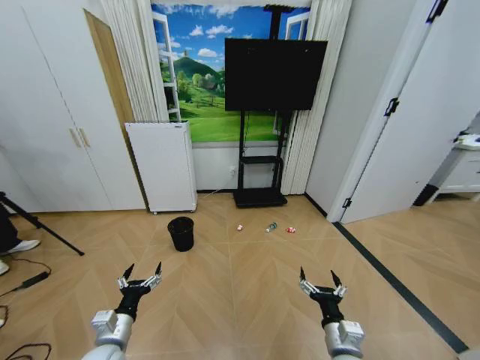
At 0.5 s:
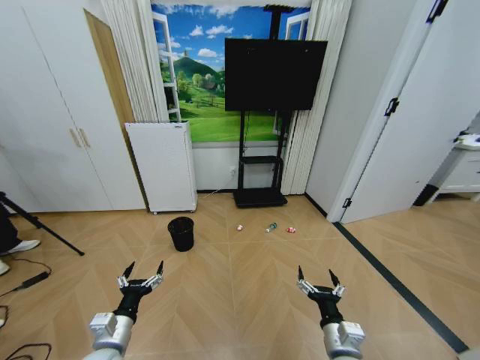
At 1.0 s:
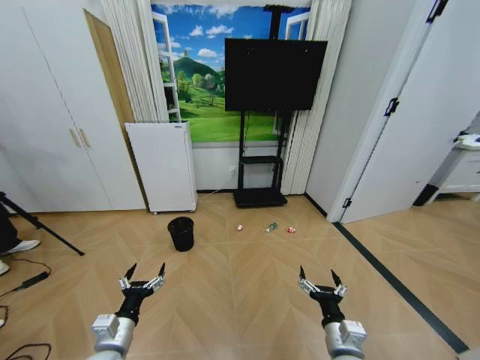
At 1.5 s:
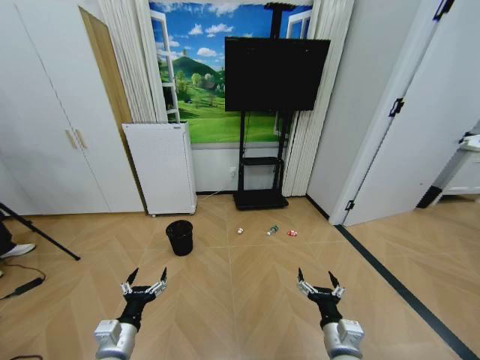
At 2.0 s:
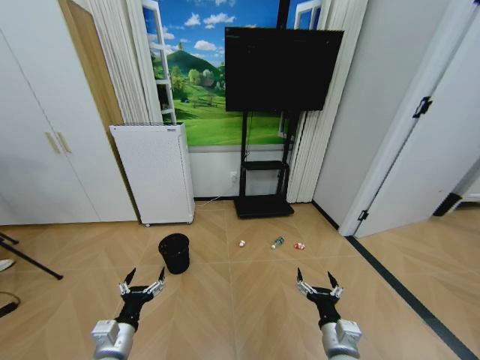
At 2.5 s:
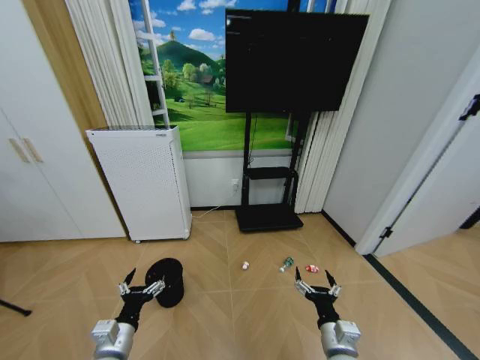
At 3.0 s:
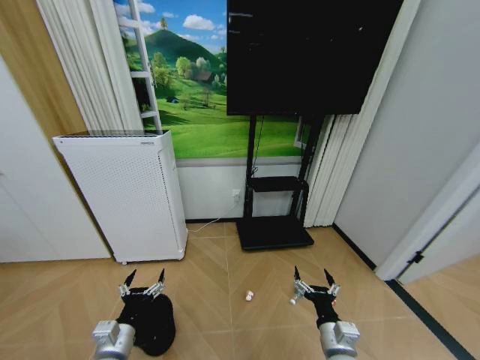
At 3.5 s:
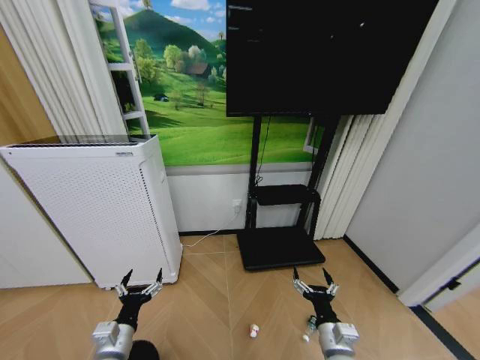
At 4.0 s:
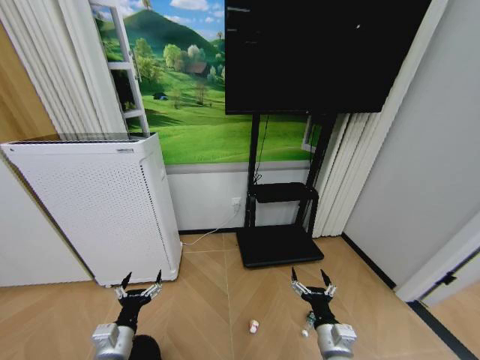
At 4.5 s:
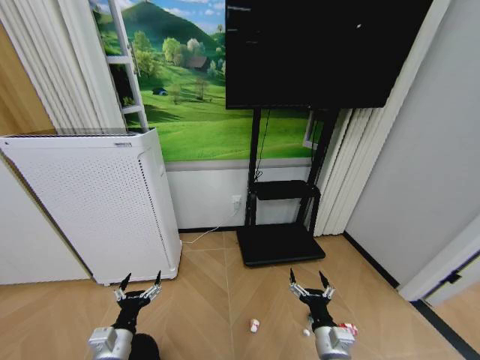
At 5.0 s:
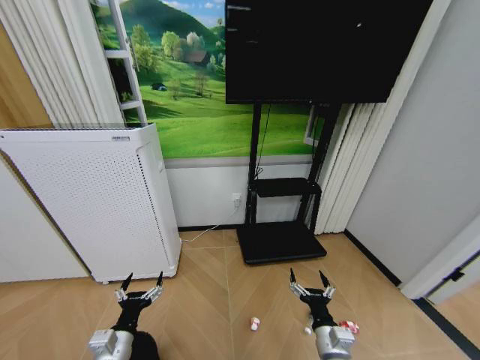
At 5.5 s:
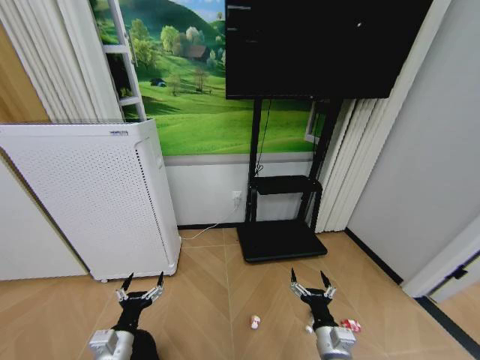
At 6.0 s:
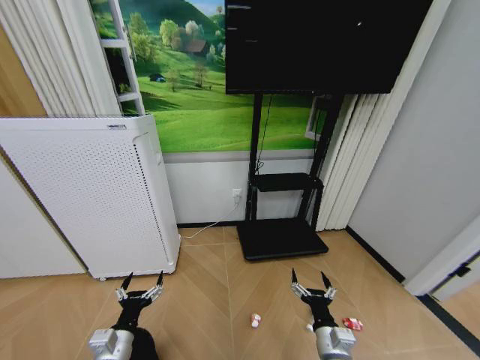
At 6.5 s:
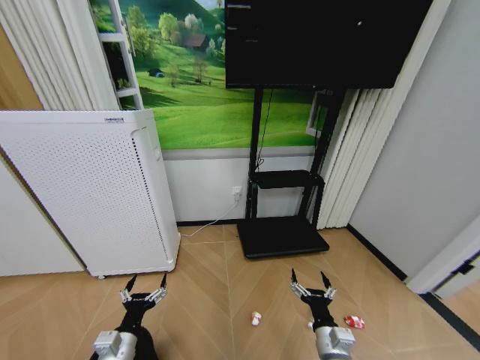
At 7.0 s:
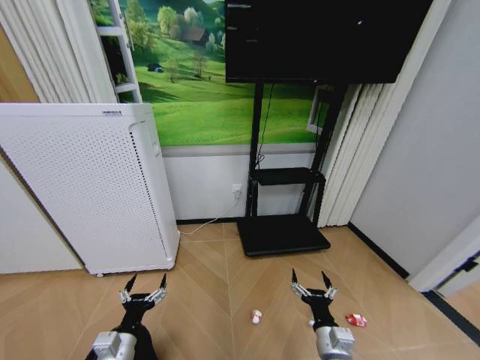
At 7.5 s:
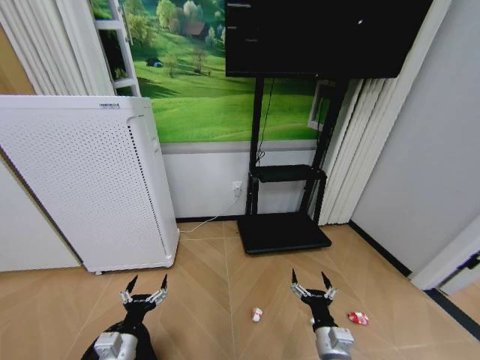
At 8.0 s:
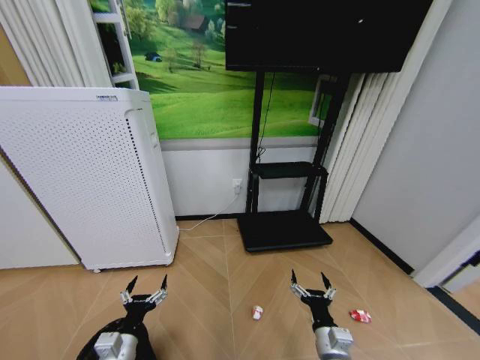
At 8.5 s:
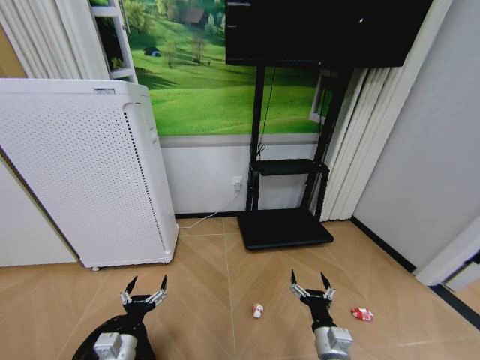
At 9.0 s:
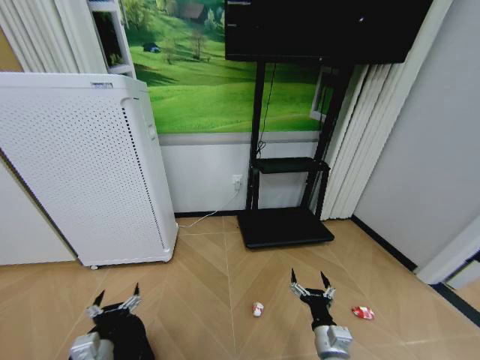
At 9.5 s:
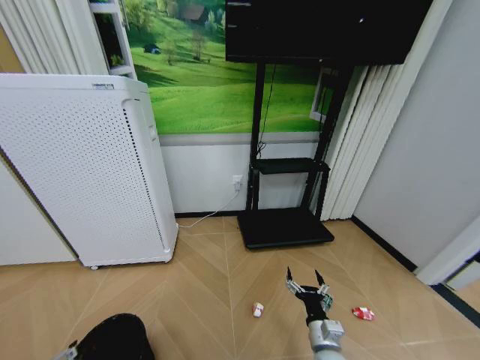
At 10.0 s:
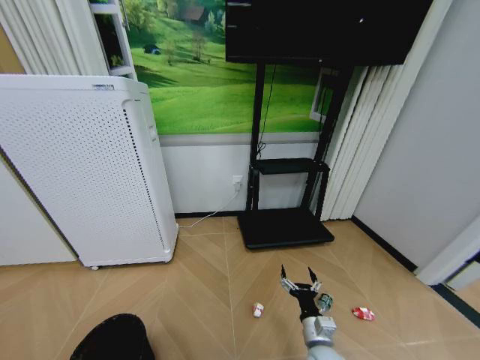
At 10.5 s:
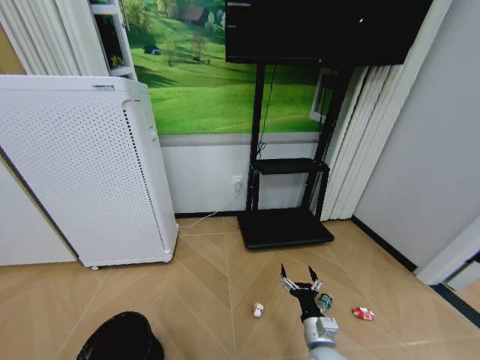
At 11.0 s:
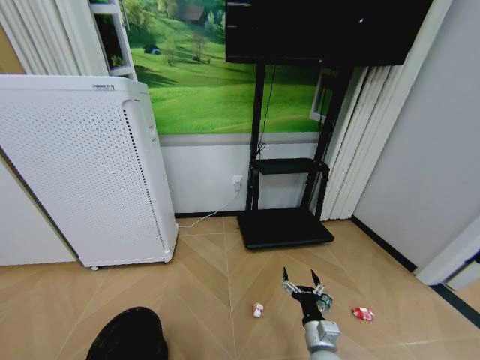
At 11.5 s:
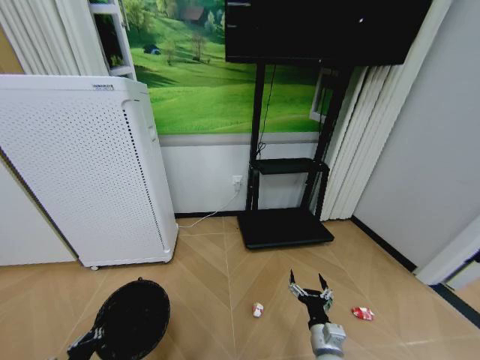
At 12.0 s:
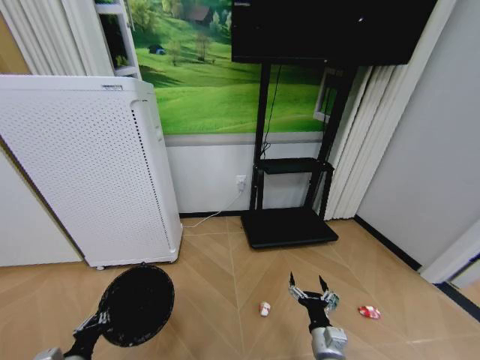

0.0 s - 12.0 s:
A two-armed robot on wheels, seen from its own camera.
Task of the whole recording: Pick up the trash bin and place the garbage on the floor into it.
6.0 s - 8.0 s: The two grippers keep their place.
8.0 s - 10.0 s: The left gripper goes roughly 15 cm to the left and backward.
10.0 s - 12.0 s: The left gripper shifts roughly 5 cm forward, and closes its fingers.

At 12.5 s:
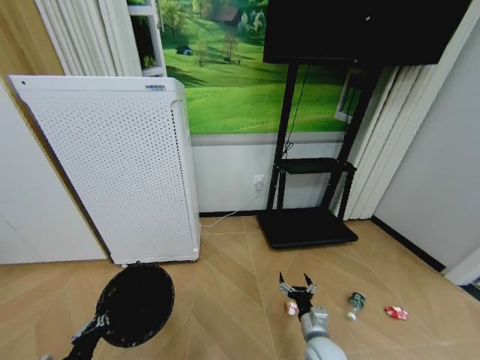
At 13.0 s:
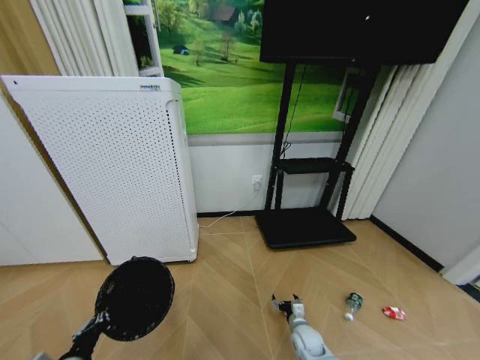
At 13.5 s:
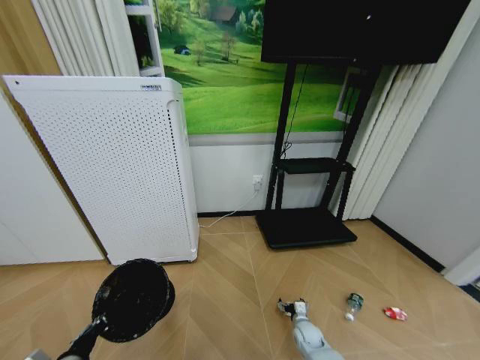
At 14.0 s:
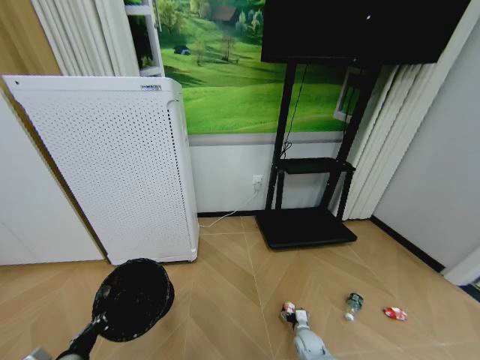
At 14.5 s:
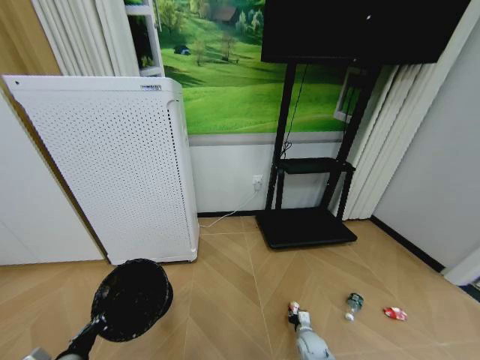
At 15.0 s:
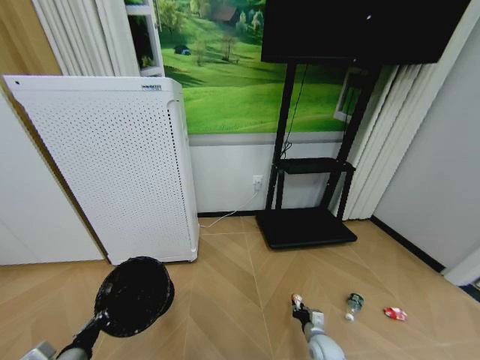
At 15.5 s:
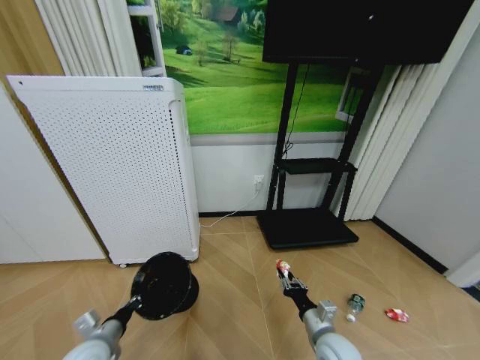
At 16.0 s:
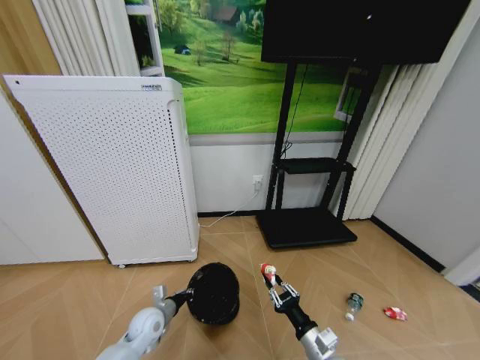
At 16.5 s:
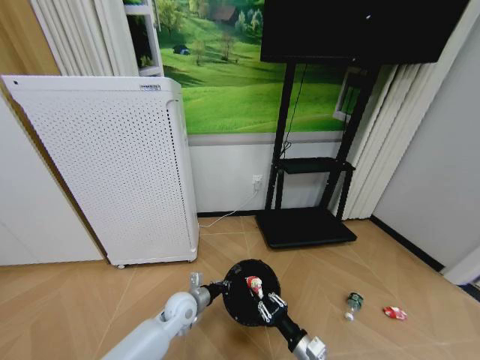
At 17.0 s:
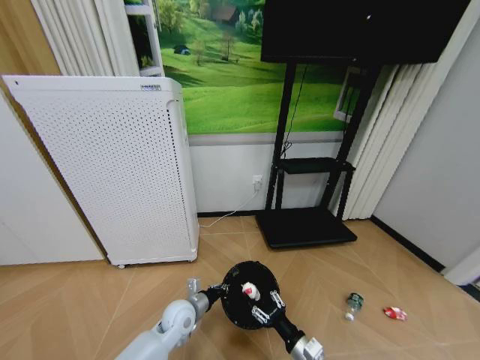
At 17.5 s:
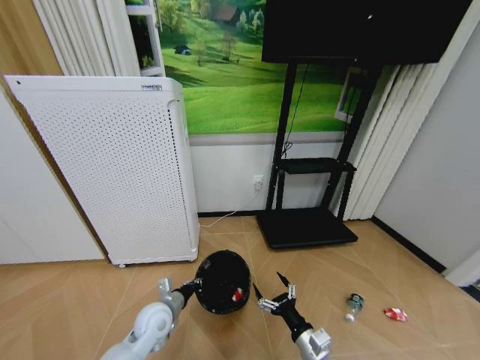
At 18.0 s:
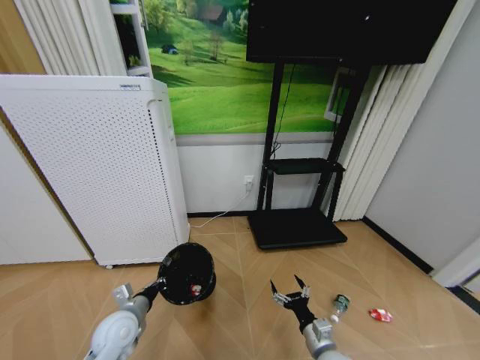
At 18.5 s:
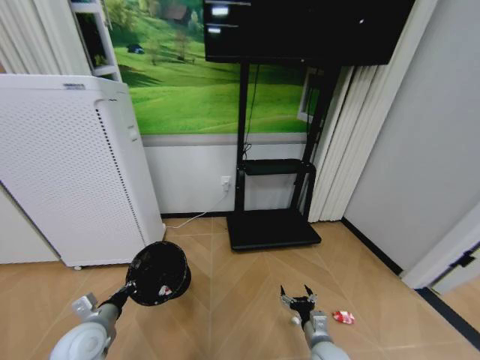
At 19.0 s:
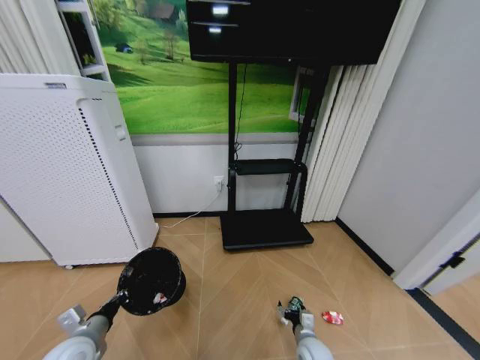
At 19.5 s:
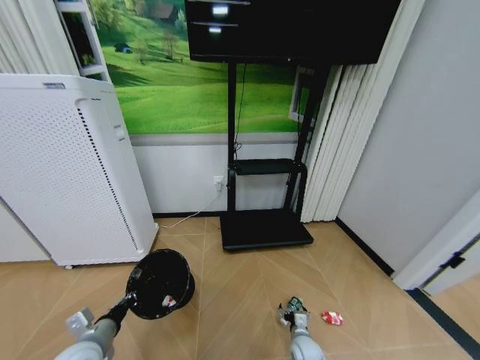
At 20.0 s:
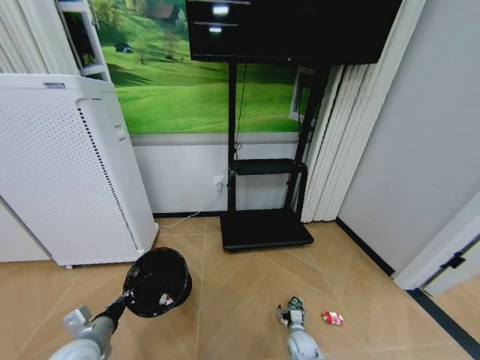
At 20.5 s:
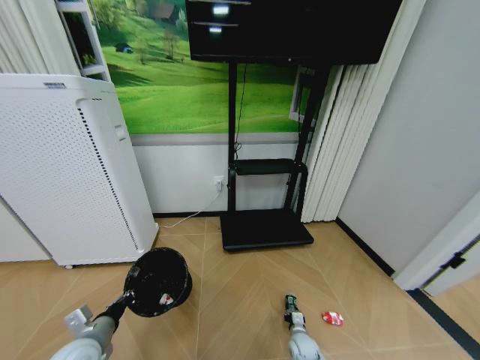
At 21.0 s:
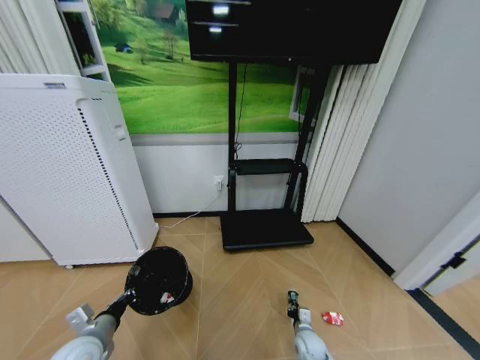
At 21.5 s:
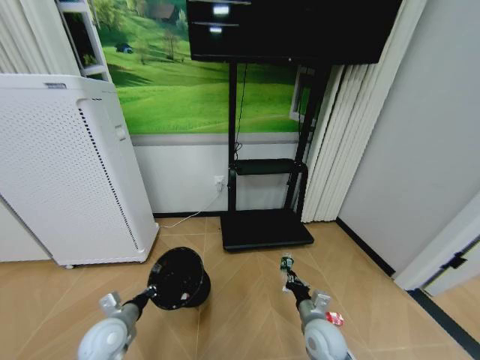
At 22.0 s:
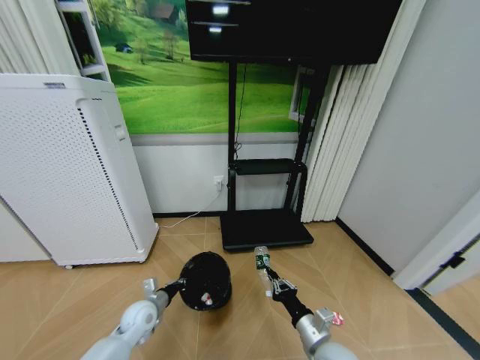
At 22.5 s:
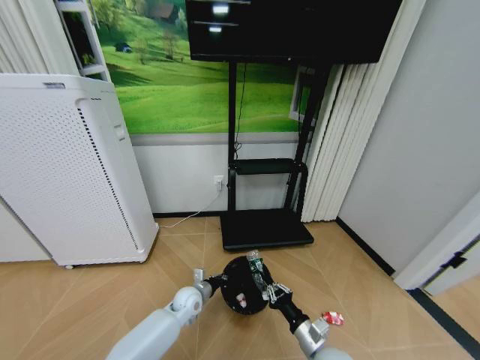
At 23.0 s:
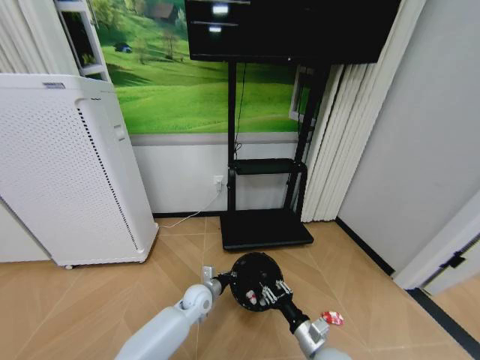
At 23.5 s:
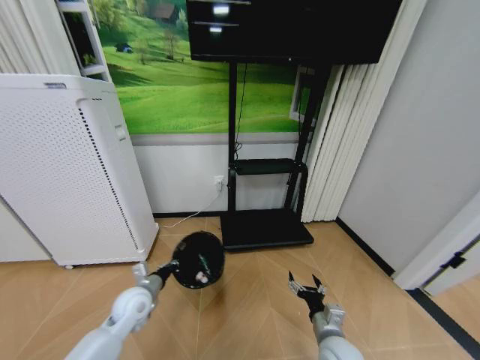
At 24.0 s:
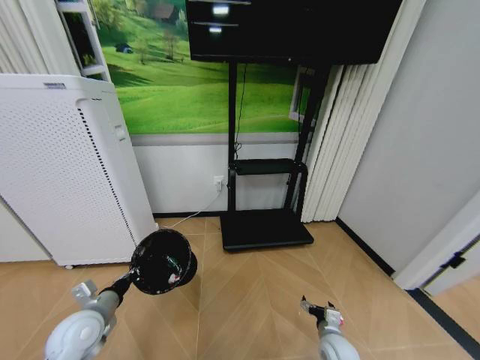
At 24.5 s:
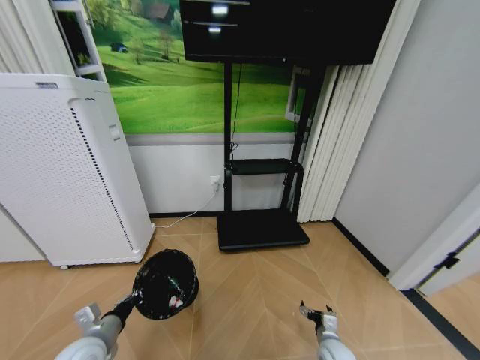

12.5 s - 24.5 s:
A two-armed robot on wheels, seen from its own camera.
Task of the whole recording: Pick up the trash bin and place the garbage on the floor into it.
12.5 s - 14.5 s: The right gripper travels downward by approximately 15 cm, and closes.
14.5 s - 16.5 s: The left gripper shifts roughly 30 cm forward, to the right and downward. The right gripper goes approximately 25 cm upward and backward.
16.5 s - 18.5 s: The left gripper travels to the left and backward by about 20 cm. Meanwhile the right gripper moves roughly 5 cm, and opens its fingers.
18.5 s - 20.5 s: The right gripper travels downward by approximately 15 cm, and closes up.
20.5 s - 22.5 s: The right gripper shifts about 20 cm upward, and closes its fingers, while the left gripper goes some 30 cm to the right, forward and downward.
22.5 s - 24.5 s: The left gripper is displaced to the left, backward and upward by roughly 30 cm. Meanwhile the right gripper is displaced downward and to the right by roughly 15 cm, and opens.

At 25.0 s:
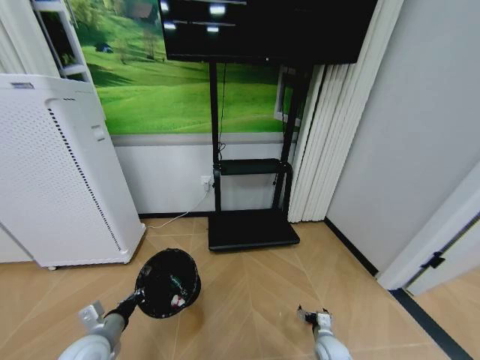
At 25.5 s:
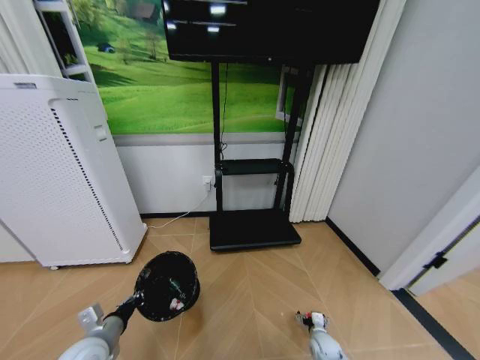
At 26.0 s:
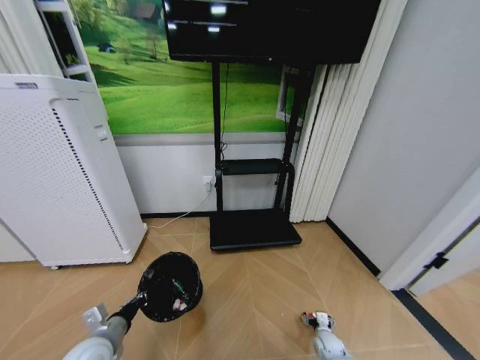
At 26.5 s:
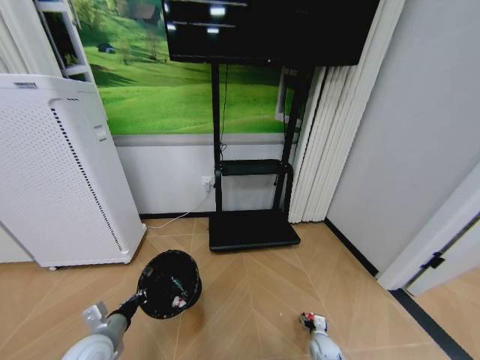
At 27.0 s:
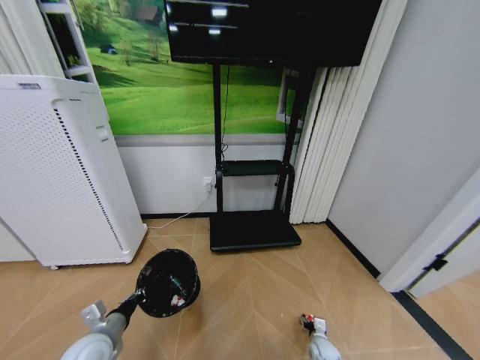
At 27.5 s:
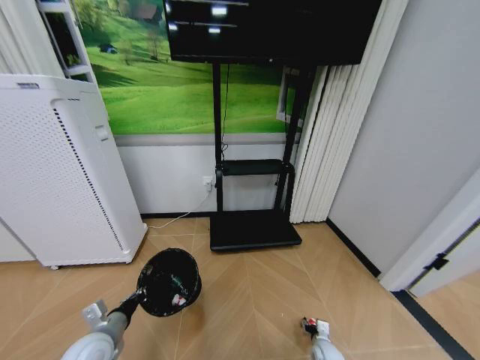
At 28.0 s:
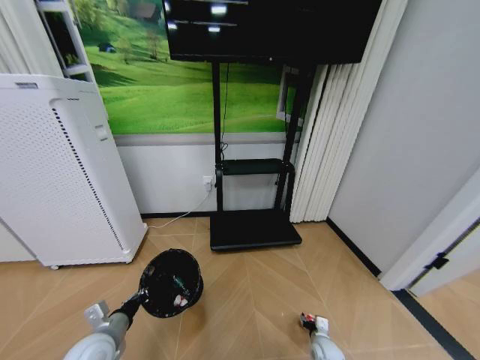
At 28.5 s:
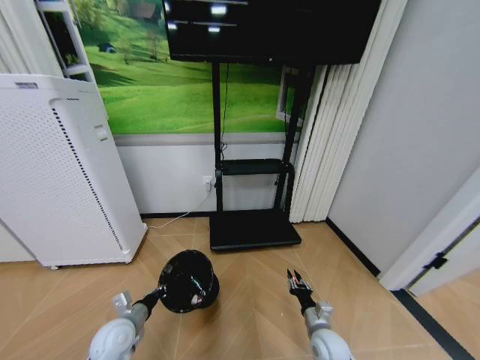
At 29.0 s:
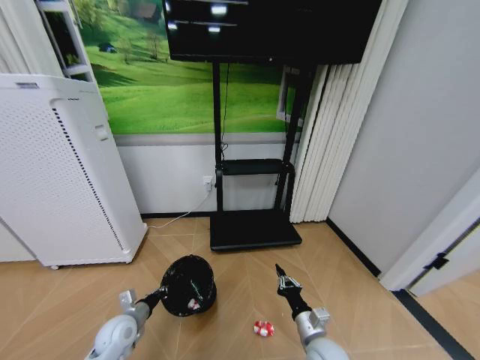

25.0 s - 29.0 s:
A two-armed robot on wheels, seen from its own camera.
Task of the whole recording: Pick up the trash bin and place the garbage on the floor into it.
25.0 s - 27.0 s: The right gripper travels downward by approximately 5 cm.
27.0 s - 29.0 s: The right gripper travels upward and to the left by approximately 25 cm, and closes, while the left gripper travels downward and forward by approximately 10 cm.
